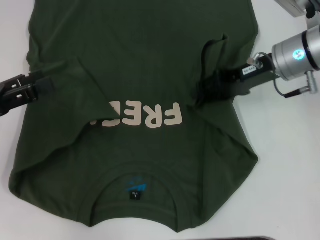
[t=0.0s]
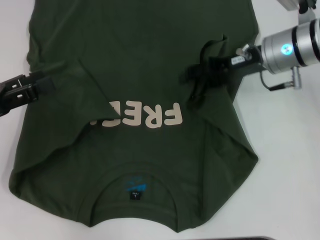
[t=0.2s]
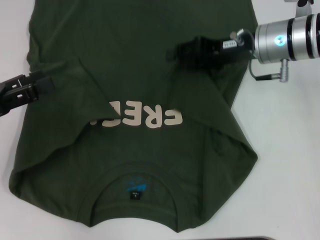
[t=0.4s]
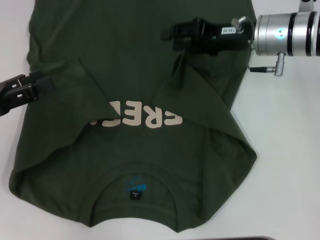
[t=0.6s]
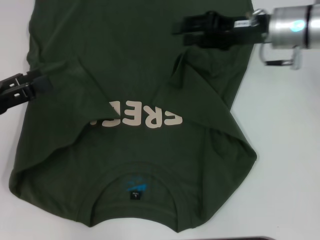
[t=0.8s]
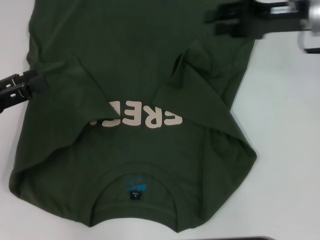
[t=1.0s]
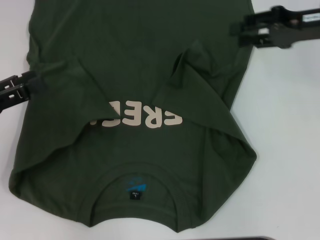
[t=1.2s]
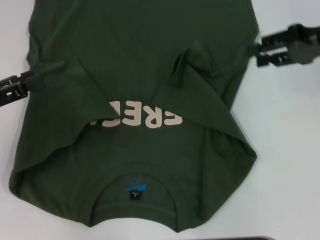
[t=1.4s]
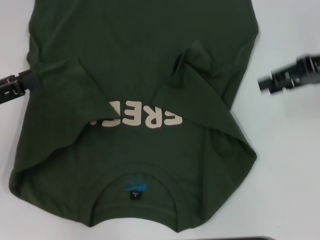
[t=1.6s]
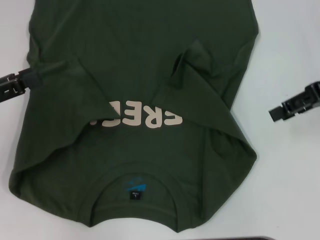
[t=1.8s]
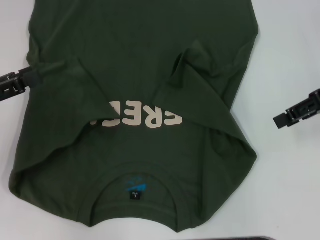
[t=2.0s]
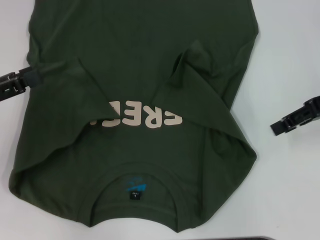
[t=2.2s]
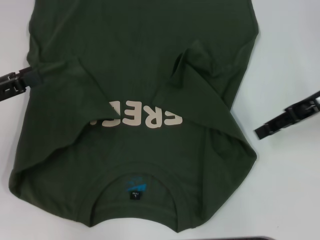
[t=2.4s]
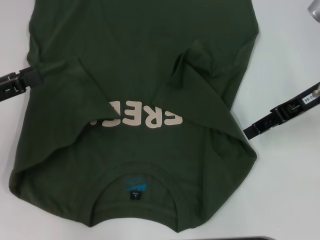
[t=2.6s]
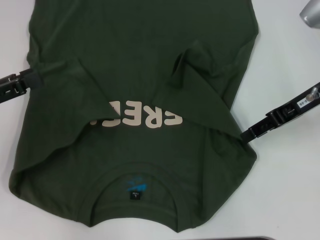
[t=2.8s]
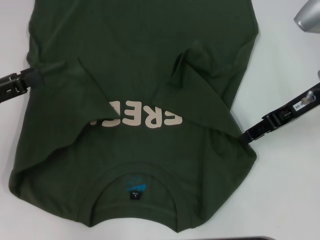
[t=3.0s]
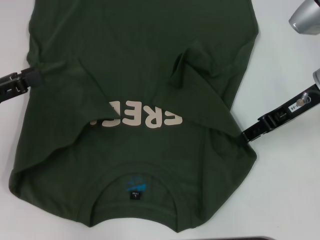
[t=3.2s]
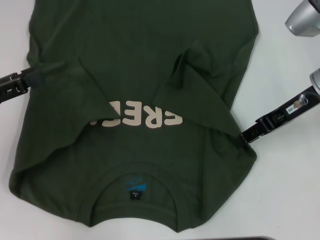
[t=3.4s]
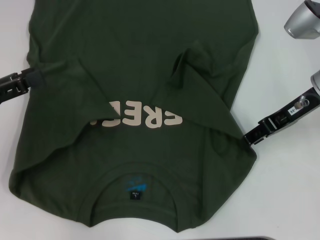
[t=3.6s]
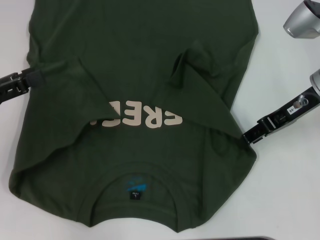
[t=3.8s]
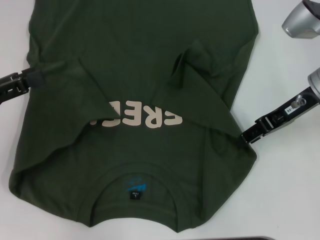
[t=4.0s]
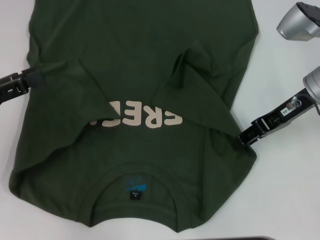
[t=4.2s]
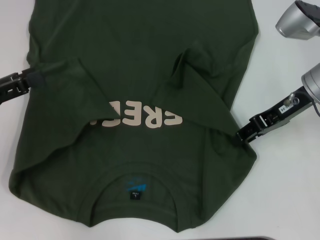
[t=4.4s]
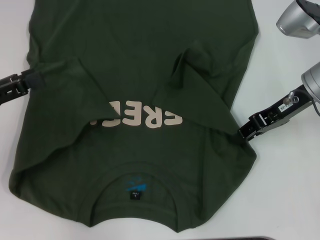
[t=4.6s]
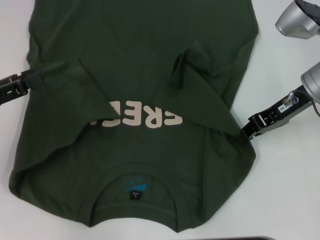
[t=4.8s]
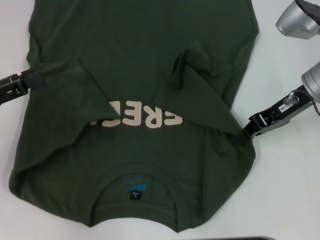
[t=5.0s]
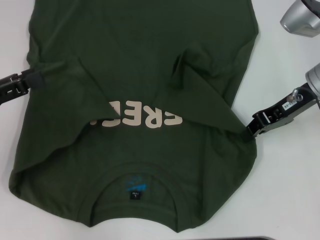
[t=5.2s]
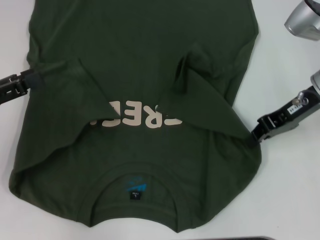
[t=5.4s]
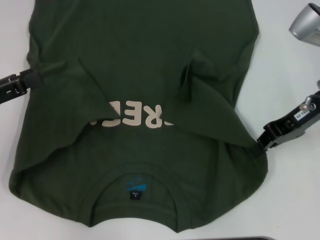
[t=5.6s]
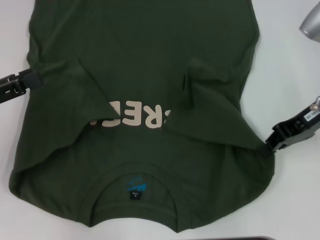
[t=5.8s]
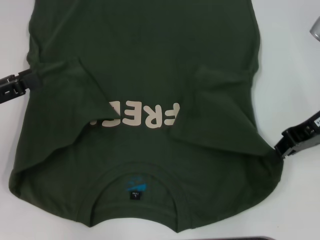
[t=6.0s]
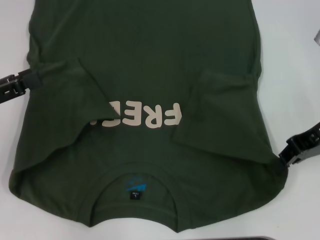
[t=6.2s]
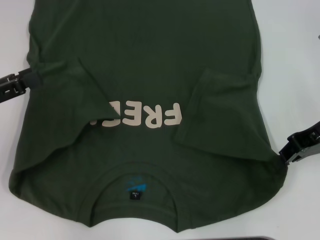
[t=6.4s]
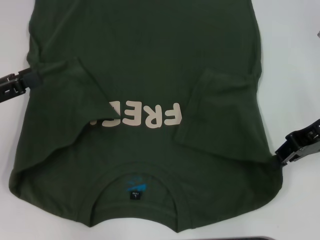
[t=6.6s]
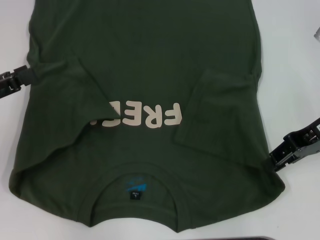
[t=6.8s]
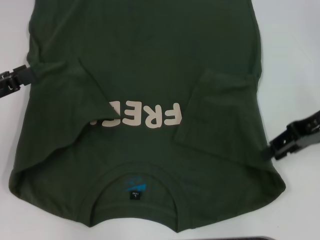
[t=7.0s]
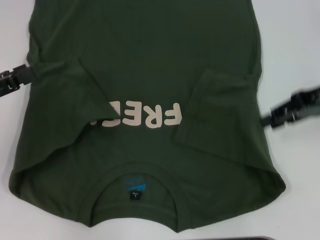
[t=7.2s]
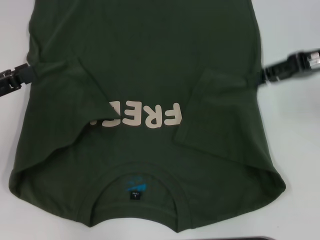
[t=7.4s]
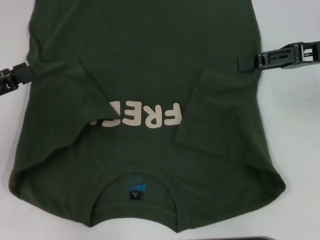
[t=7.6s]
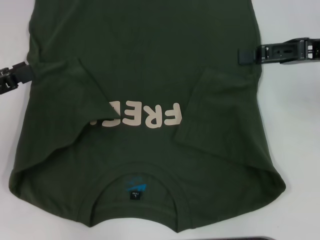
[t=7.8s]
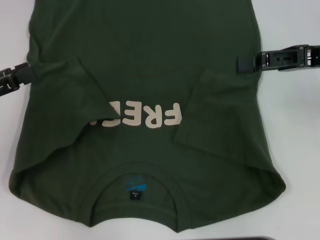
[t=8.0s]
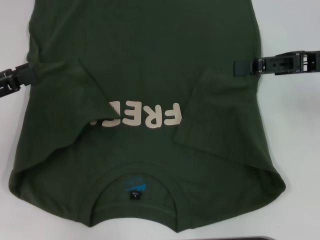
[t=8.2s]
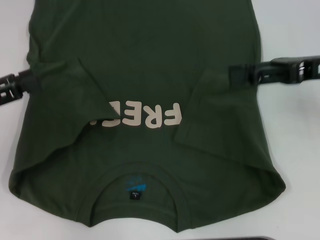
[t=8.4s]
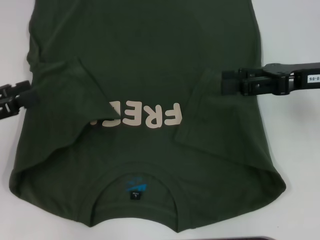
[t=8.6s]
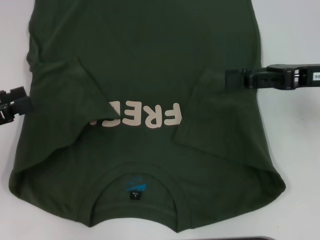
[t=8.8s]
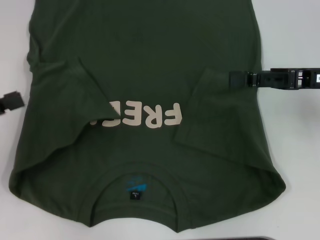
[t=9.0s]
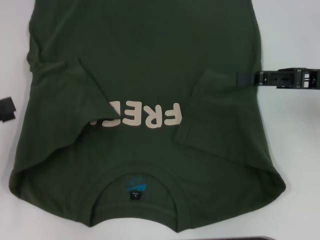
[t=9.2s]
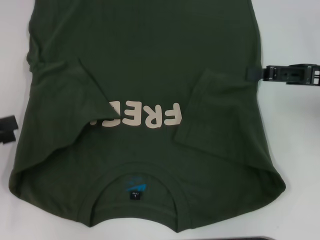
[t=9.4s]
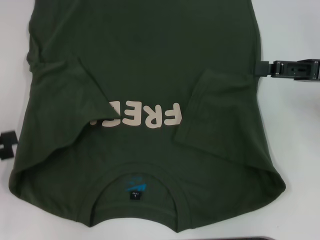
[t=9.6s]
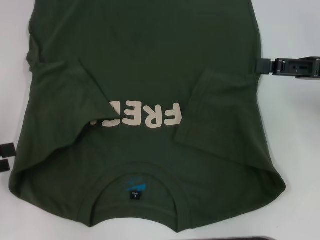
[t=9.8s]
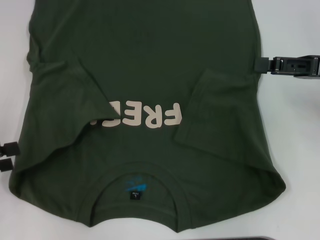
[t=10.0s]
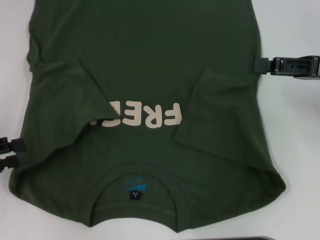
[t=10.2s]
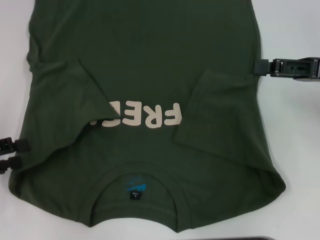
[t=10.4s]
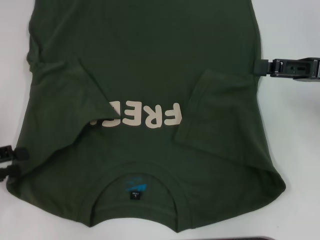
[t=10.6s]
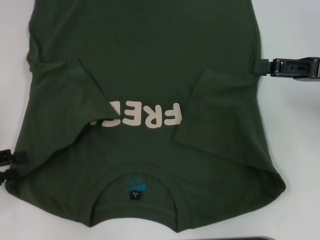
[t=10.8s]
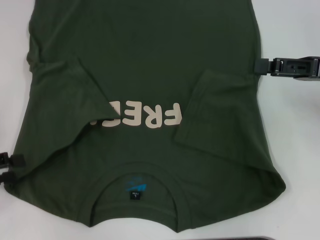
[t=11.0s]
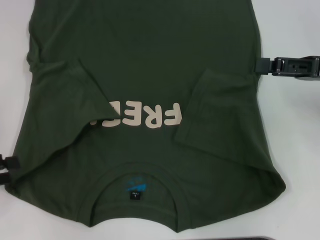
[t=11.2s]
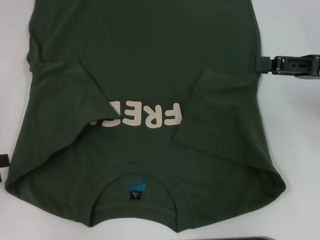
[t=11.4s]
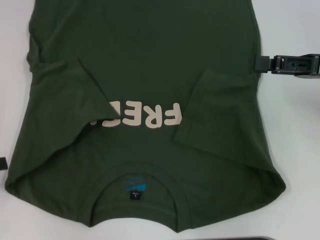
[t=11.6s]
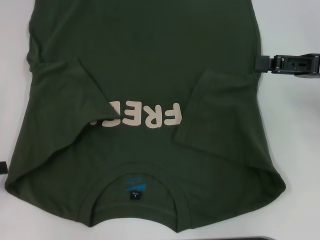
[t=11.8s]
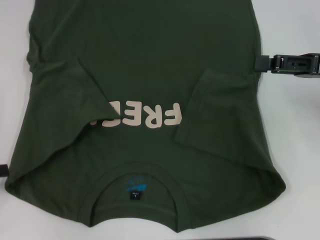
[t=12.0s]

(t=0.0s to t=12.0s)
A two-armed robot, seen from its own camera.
t=0.0s - t=1.6s: The right gripper goes roughly 10 cm to the right and upward.
t=1.6s - t=3.0s: The right gripper goes roughly 5 cm to the left.
t=3.0s - t=4.4s: The grippers stay close to where they were, moving slightly.
t=4.4s - t=6.0s: The right gripper closes its fingers.
t=6.0s - t=7.6s: The right gripper opens up.
t=7.6s - t=9.0s: The right gripper opens its fingers.
t=10.4s - t=12.0s: The grippers stay close to where they were, moving slightly.

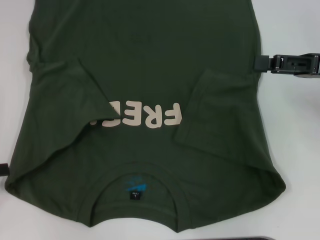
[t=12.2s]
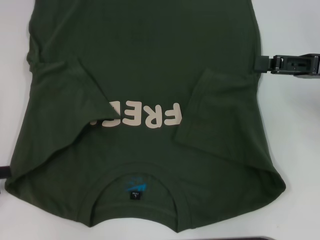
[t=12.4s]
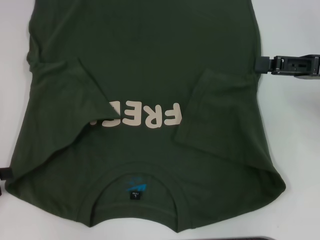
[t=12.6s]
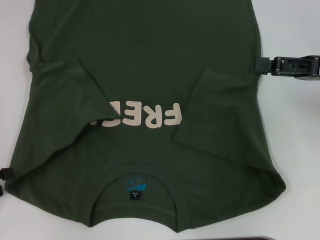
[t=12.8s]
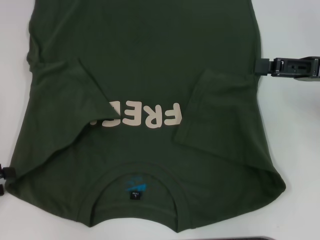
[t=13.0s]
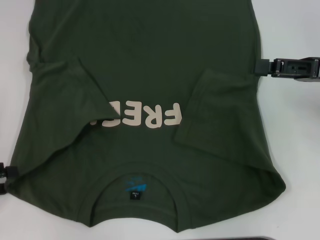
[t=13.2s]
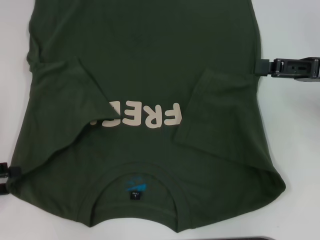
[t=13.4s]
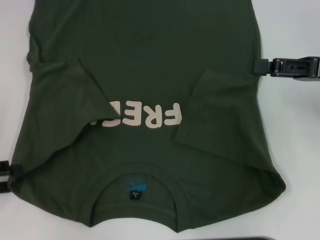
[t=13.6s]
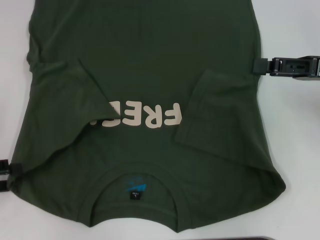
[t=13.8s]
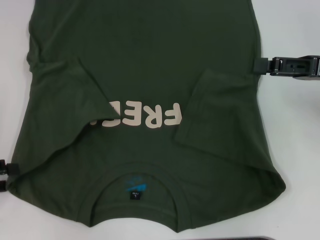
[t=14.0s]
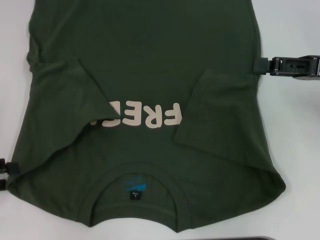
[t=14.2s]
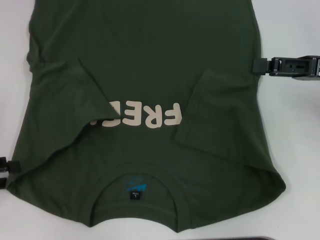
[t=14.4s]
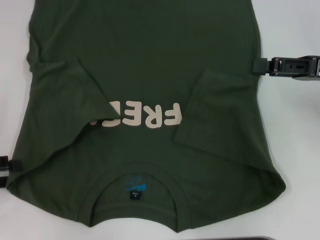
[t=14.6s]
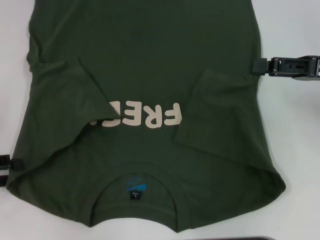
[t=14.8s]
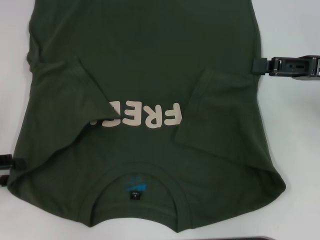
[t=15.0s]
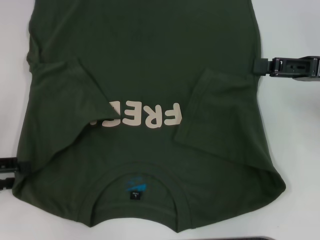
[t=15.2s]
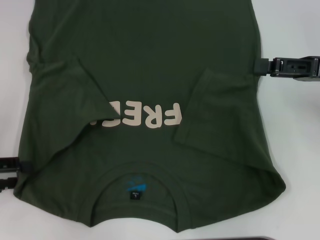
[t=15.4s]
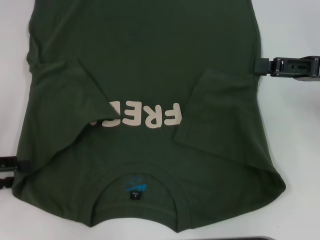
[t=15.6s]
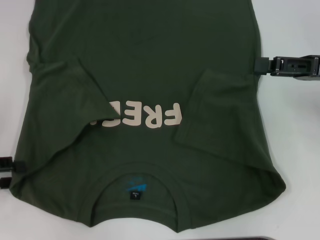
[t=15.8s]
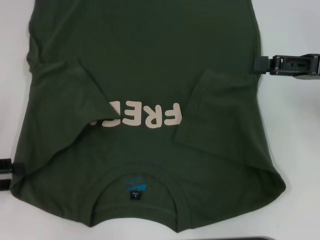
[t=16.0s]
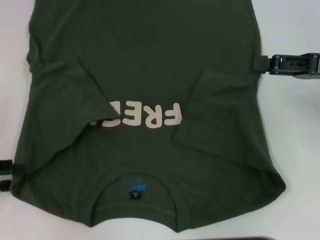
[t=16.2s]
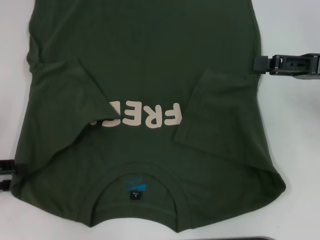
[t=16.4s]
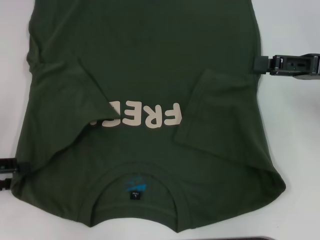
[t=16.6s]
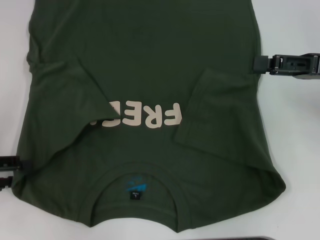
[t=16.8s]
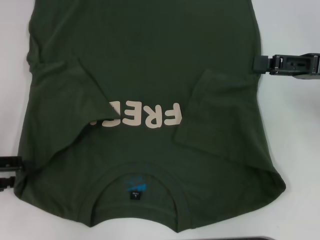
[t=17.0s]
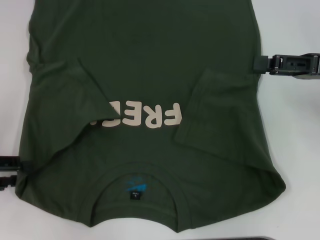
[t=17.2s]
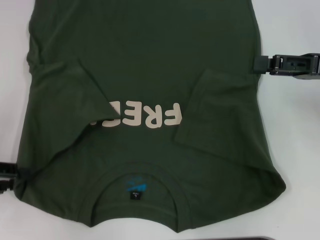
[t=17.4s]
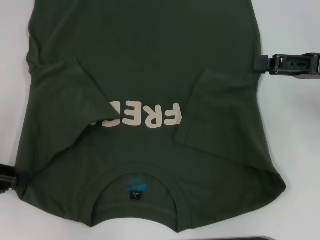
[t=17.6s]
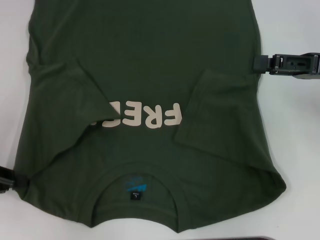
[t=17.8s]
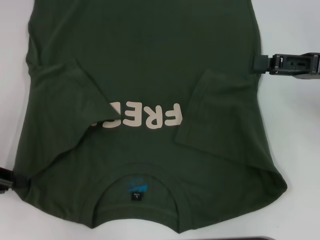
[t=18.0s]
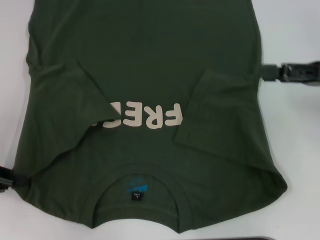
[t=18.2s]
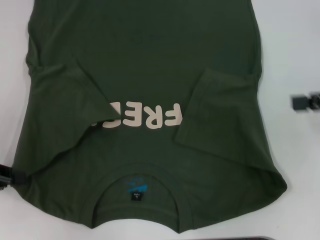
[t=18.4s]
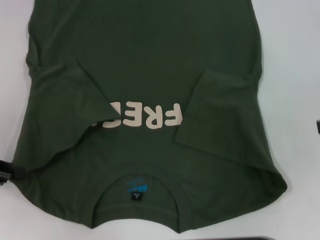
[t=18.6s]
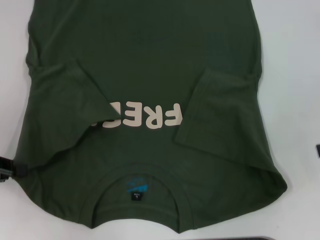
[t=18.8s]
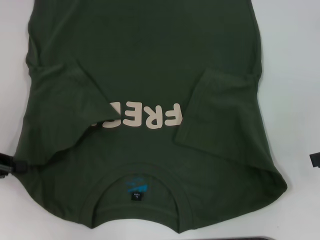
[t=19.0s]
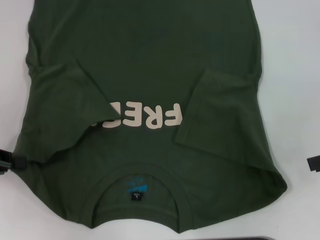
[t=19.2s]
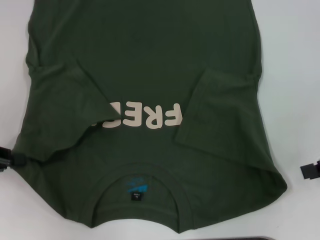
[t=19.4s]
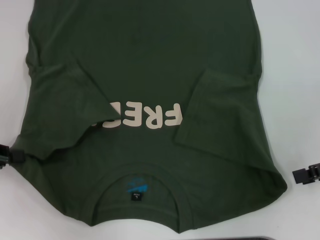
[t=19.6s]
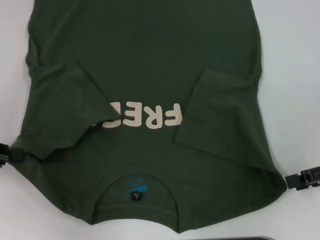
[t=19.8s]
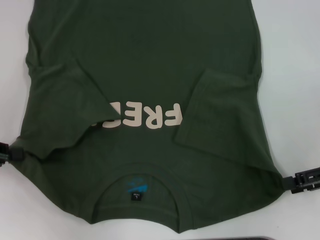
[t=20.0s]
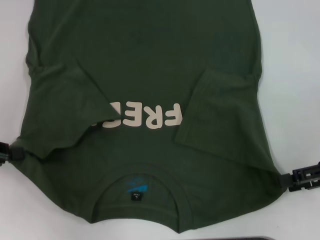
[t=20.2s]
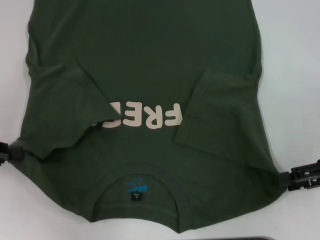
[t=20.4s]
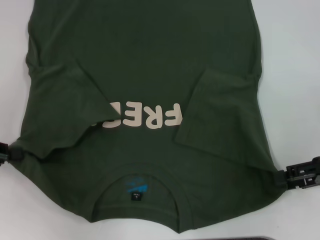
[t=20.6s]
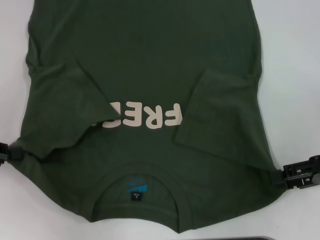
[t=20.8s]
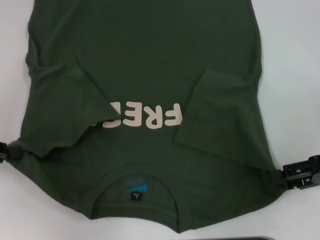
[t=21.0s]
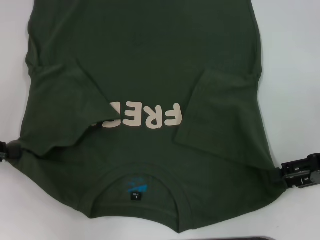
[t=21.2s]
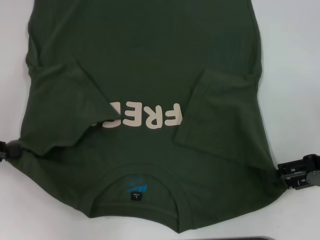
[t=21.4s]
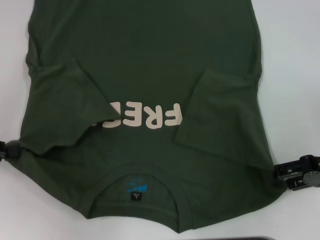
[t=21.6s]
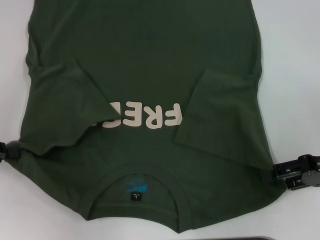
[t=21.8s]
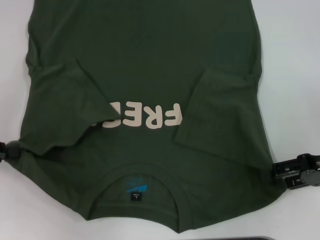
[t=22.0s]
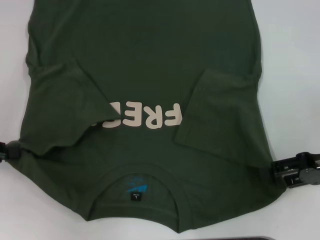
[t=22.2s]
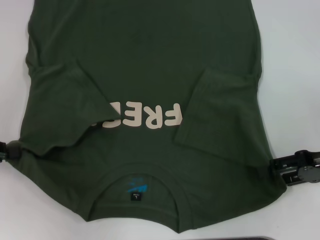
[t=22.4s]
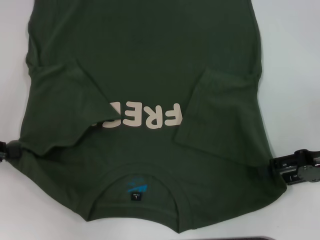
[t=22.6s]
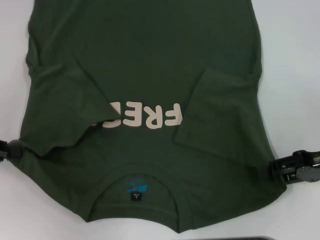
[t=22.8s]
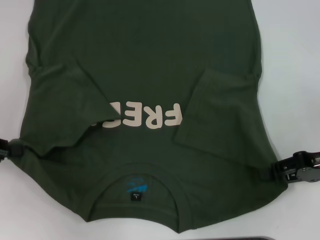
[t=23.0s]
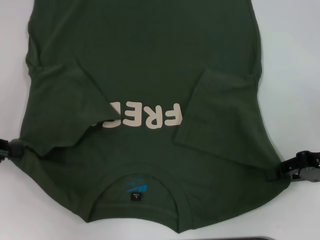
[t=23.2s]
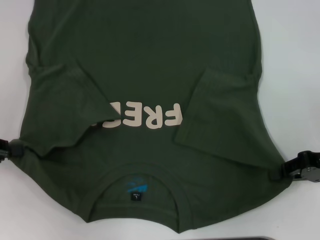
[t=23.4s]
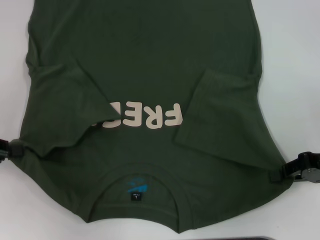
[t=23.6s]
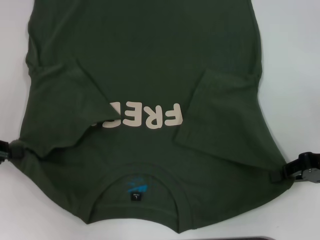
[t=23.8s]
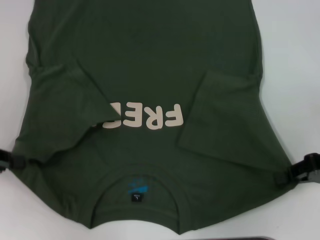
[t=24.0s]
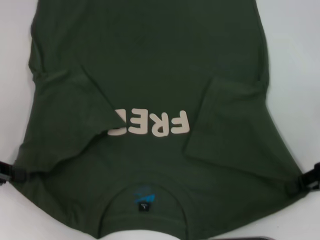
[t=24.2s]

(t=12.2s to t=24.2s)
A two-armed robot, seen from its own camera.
Step, t=12.2s - t=20.4s: Grab the bottom left corner with your left hand.
t=12.2s - t=13.8s: The grippers stay close to where they were, moving slightly.
t=13.8s - t=15.2s: Both grippers stay about where they are.
t=15.2s - t=16.6s: Neither gripper changes place.
t=16.6s - t=18.2s: The left gripper closes its fingers.
t=18.2s - t=19.8s: The right gripper is displaced backward by approximately 5 cm.
t=19.8s - t=22.6s: There are only small adjustments of the grippers.
t=22.6s - t=24.2s: The right gripper closes up.
